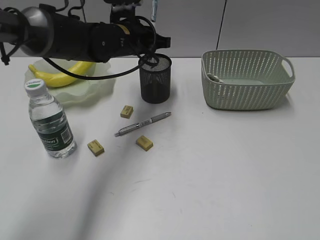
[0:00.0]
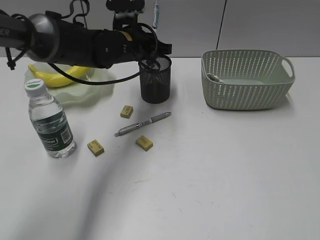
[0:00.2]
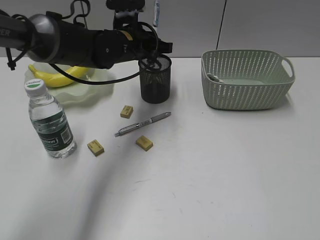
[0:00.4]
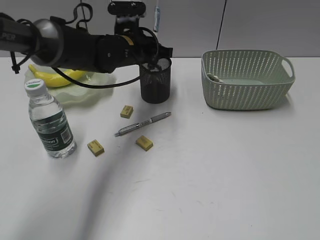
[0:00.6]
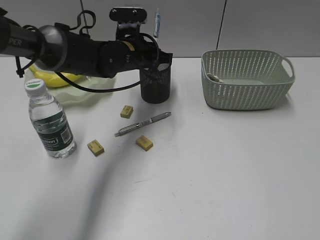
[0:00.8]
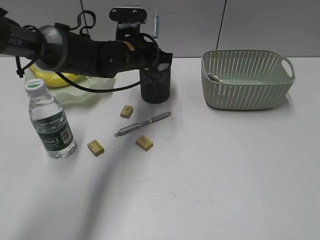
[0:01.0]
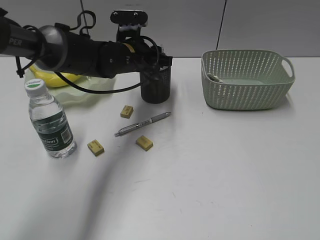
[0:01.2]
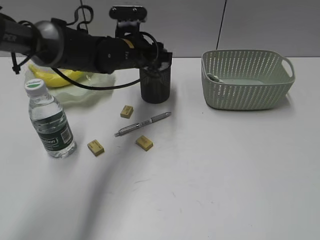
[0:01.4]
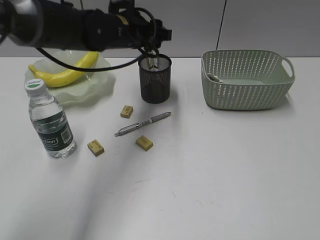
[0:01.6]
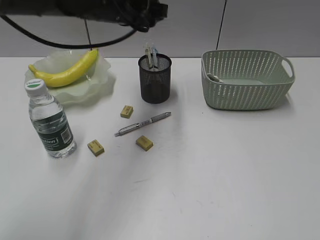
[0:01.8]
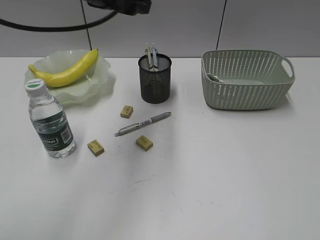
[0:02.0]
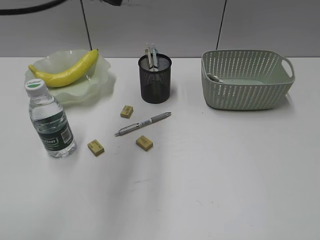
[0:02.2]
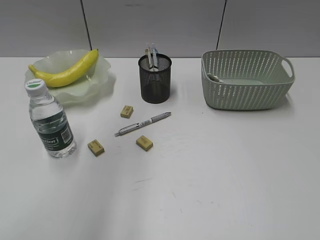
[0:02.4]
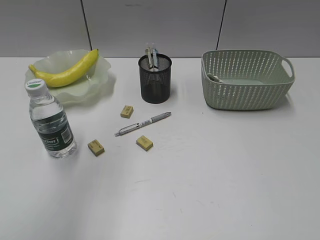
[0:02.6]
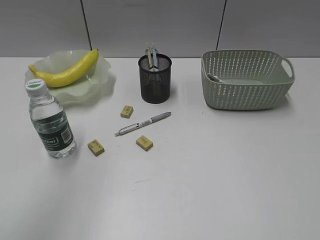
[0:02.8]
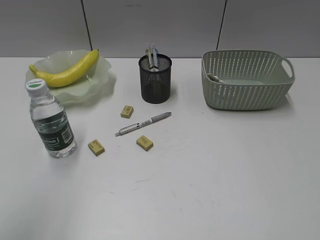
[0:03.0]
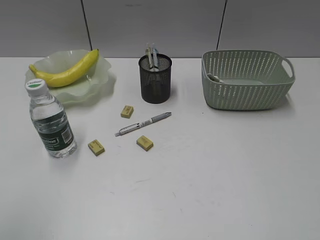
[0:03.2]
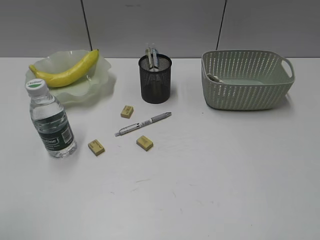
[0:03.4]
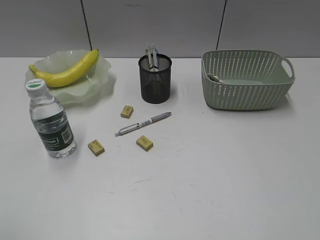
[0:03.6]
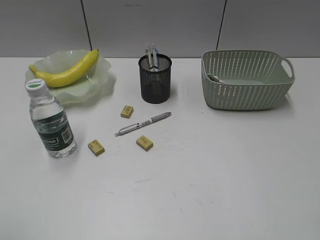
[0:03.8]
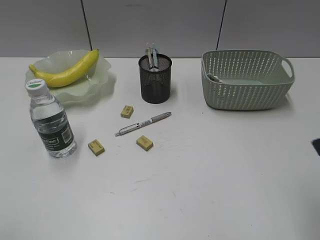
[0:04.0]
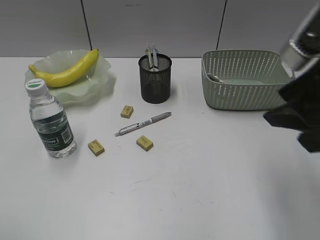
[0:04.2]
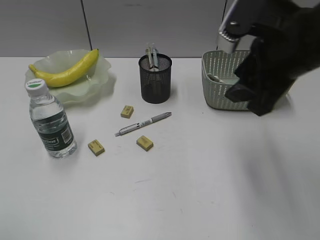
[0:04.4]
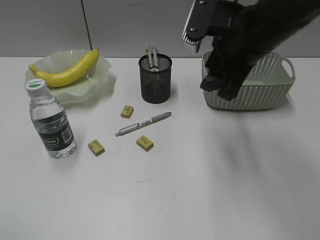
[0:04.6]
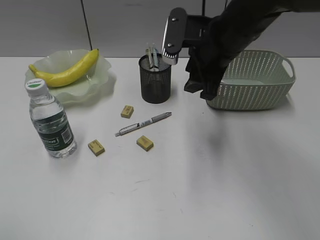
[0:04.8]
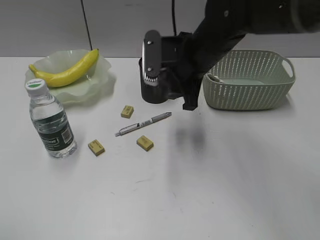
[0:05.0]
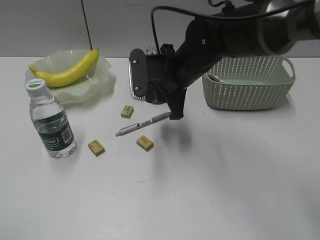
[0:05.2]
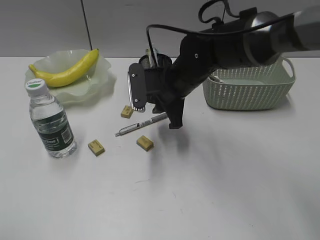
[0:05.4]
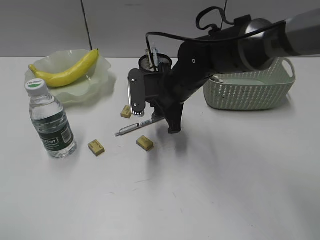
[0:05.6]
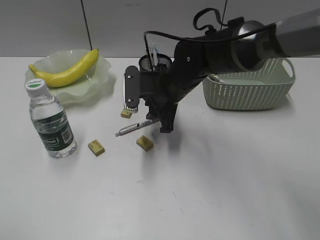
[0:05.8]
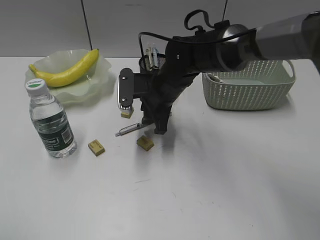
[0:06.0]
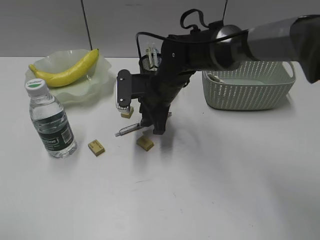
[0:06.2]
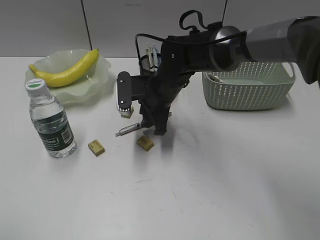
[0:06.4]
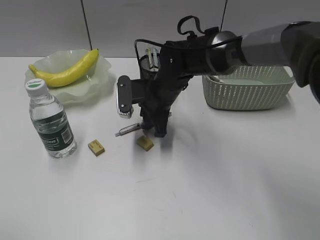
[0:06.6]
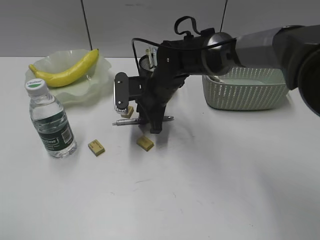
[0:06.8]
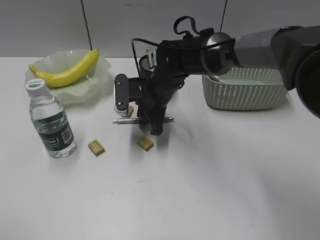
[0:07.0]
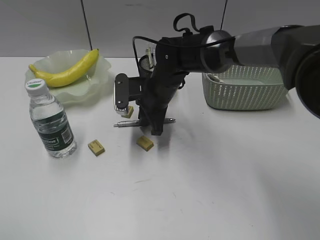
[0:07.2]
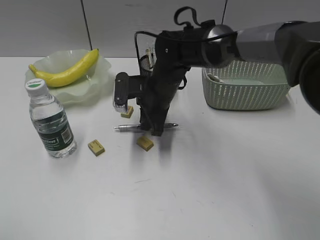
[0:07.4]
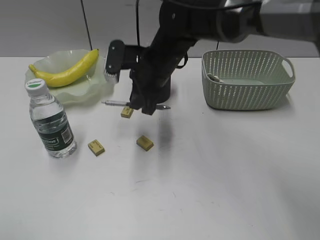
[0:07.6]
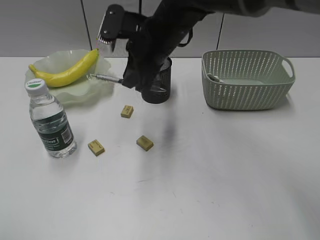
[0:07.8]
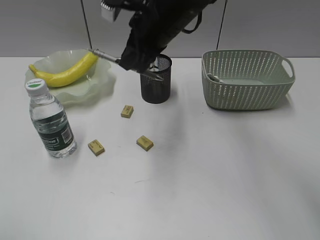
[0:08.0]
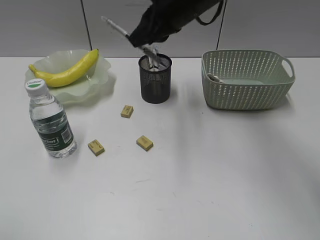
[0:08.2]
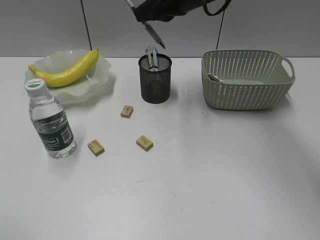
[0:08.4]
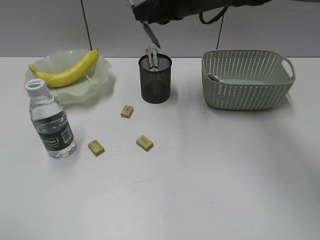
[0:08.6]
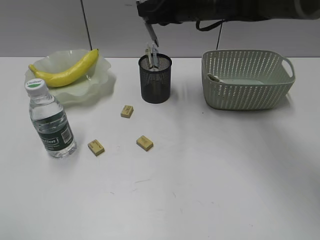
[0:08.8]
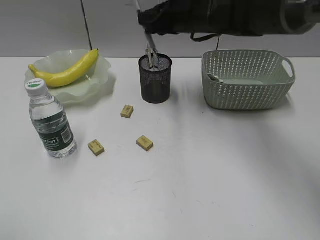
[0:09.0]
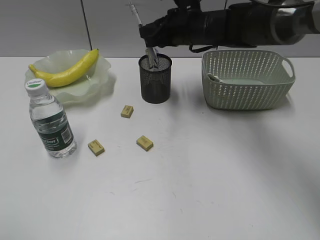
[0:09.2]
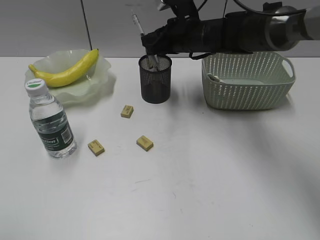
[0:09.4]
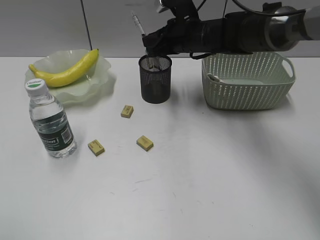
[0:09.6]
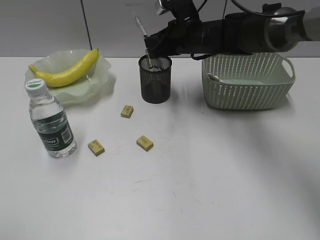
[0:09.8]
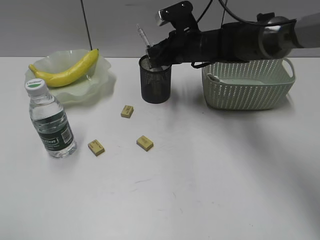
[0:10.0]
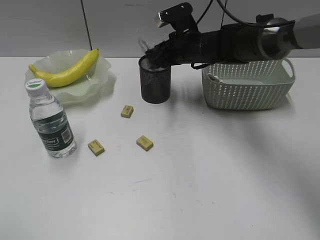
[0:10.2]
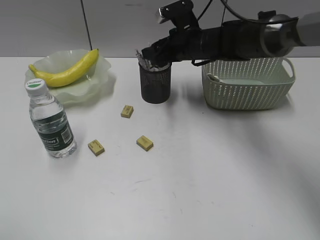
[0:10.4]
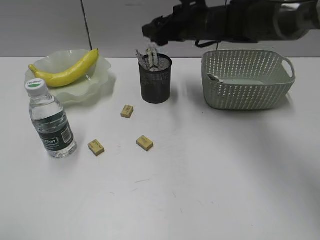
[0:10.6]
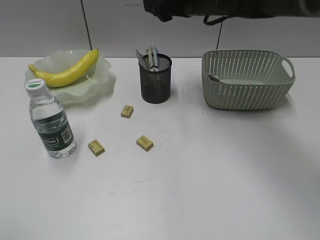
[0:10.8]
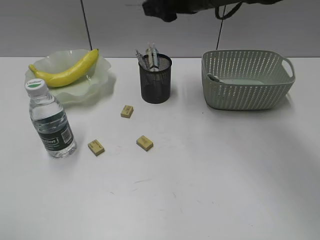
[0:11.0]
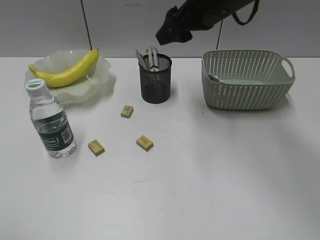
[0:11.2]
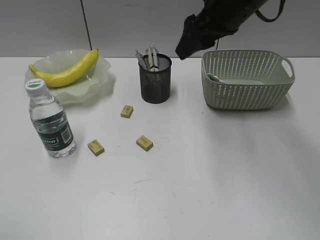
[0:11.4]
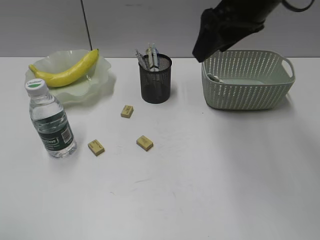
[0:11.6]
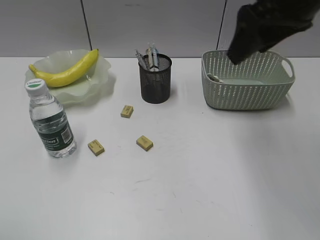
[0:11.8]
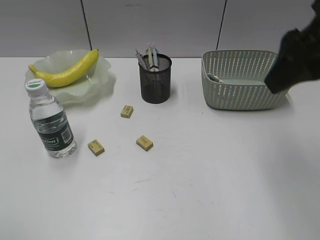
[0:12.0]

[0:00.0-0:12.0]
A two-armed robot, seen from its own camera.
Step, 0:01.6 to 0:07.2: Grasp the gray pen with right gripper.
Step, 0:07.4 to 0:10.2: Place the gray pen in pen holder with right gripper.
0:00.0 to 0:01.6: The left gripper opens.
0:01.6 to 0:03.0: The left gripper goes about 50 cm backward, upward and to the left.
0:03.0 to 0:04.4: The right gripper is displaced forward and to the left by about 30 cm.
0:04.4 to 0:06.0: The right gripper is displaced downward, to the left and forward by some 25 cm.
0:06.0 to 0:07.6: The right gripper closes.
0:07.6 to 0:09.0: The right gripper travels to the right, forward and upward by approximately 10 cm.
0:09.0 to 0:10.4: The right gripper travels downward by approximately 5 cm, and opens.
0:10.4 to 0:12.0: The right gripper heads backward, upward and to the right, covering some 30 cm.

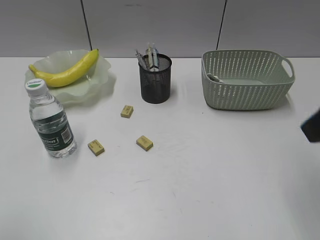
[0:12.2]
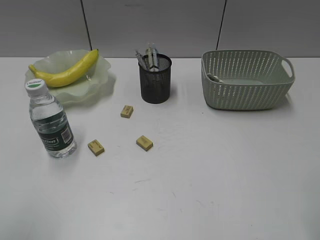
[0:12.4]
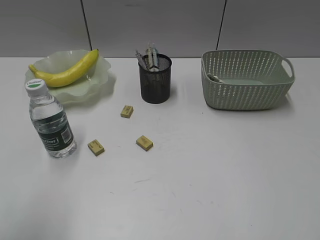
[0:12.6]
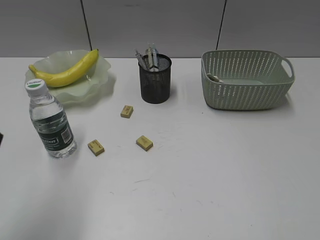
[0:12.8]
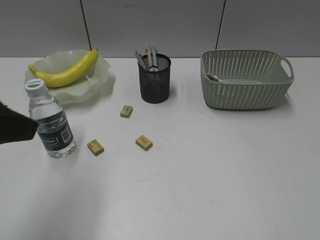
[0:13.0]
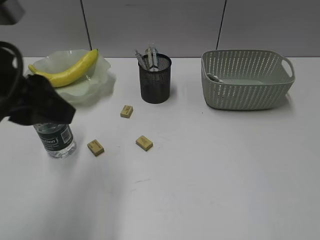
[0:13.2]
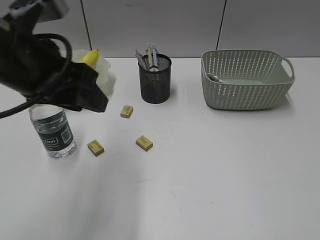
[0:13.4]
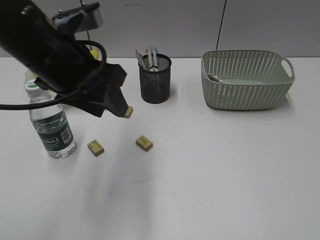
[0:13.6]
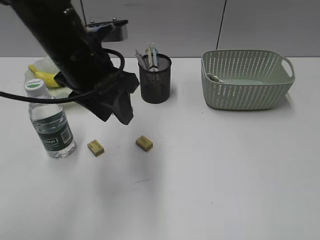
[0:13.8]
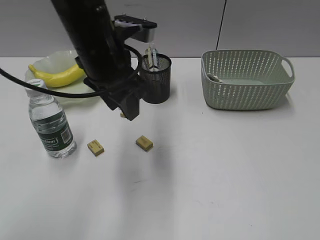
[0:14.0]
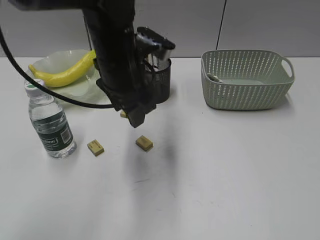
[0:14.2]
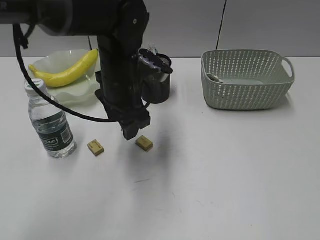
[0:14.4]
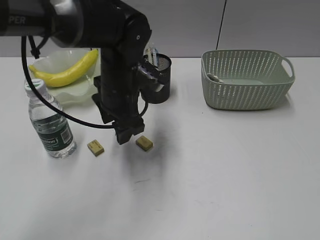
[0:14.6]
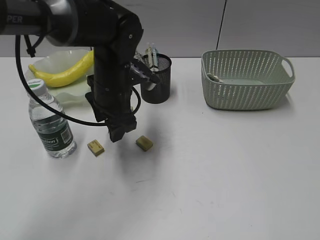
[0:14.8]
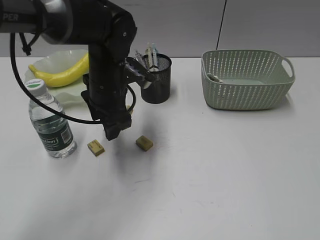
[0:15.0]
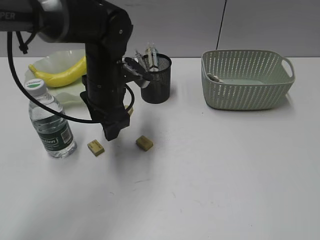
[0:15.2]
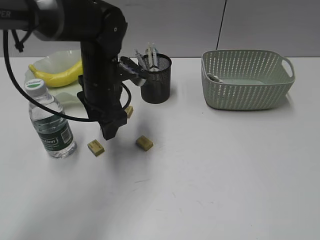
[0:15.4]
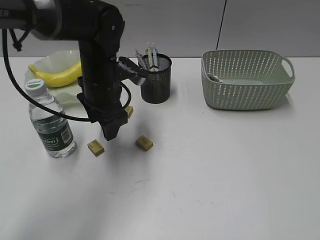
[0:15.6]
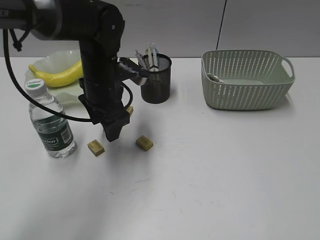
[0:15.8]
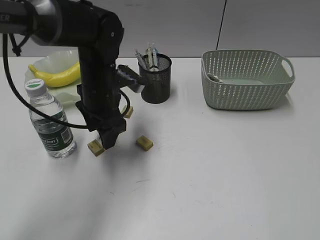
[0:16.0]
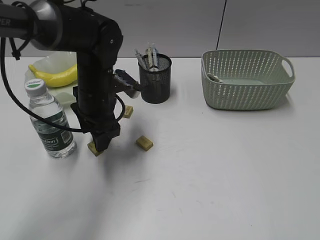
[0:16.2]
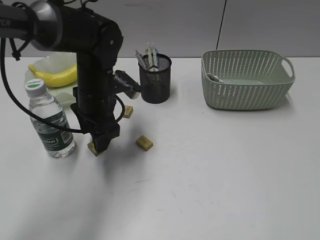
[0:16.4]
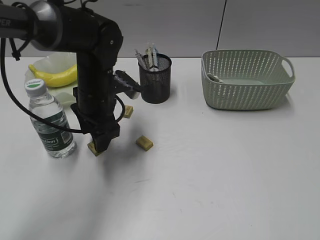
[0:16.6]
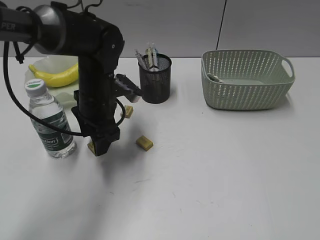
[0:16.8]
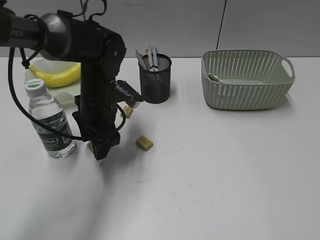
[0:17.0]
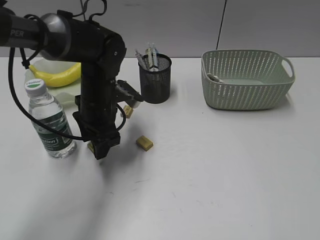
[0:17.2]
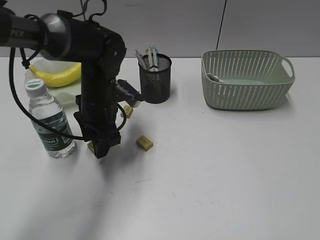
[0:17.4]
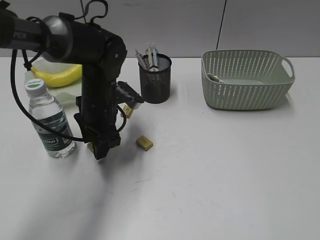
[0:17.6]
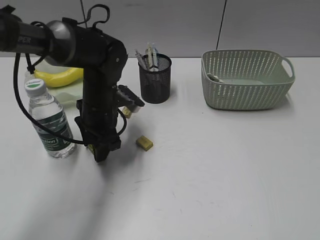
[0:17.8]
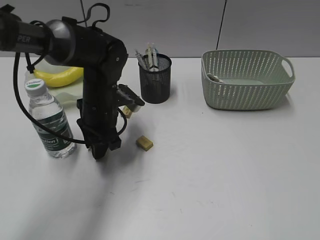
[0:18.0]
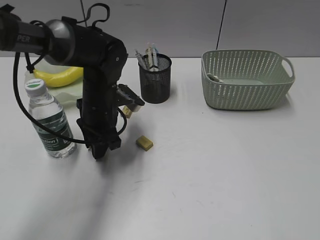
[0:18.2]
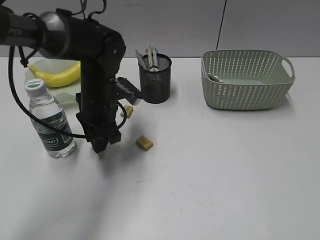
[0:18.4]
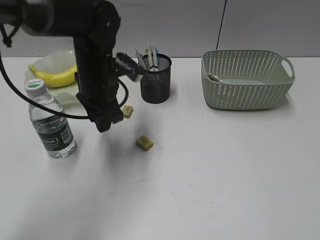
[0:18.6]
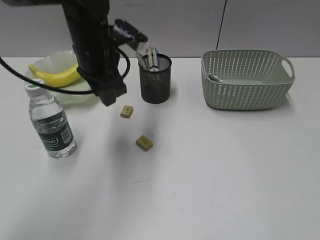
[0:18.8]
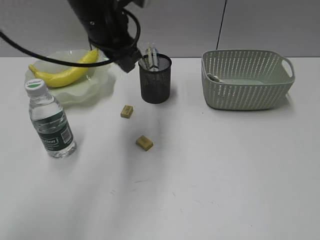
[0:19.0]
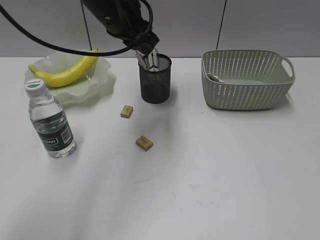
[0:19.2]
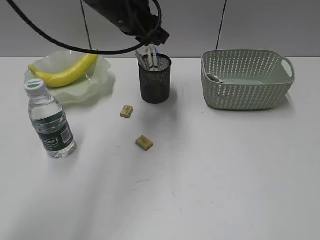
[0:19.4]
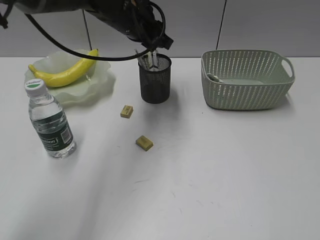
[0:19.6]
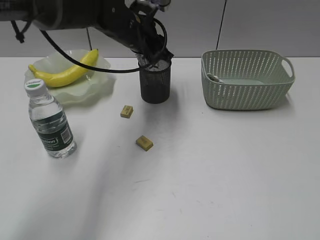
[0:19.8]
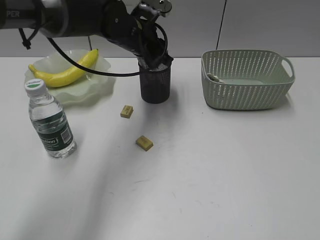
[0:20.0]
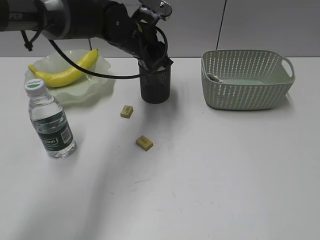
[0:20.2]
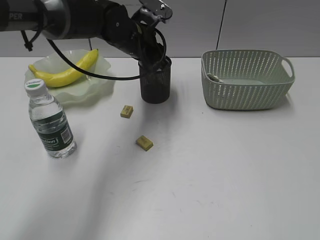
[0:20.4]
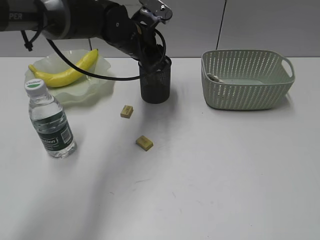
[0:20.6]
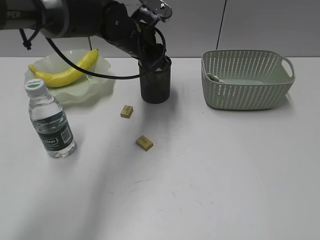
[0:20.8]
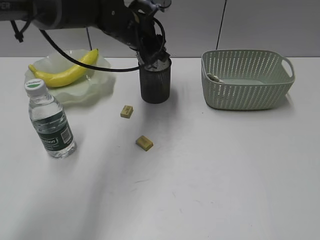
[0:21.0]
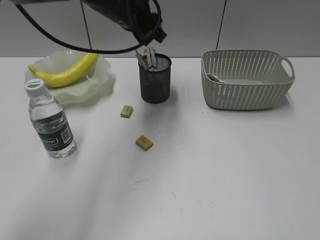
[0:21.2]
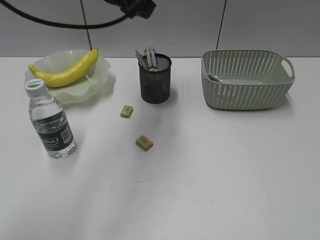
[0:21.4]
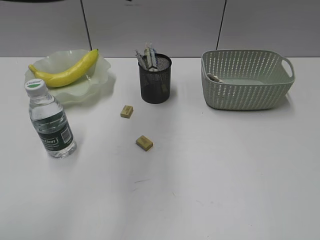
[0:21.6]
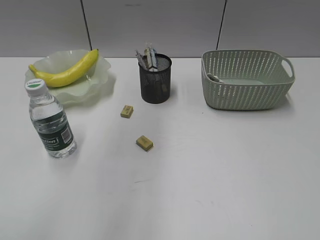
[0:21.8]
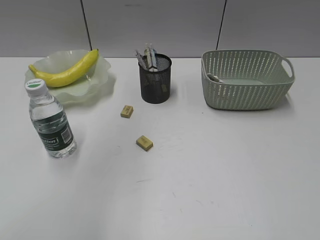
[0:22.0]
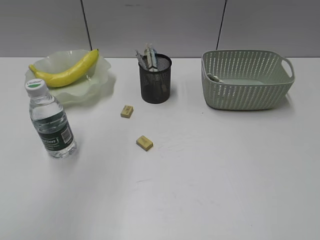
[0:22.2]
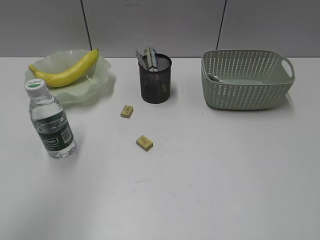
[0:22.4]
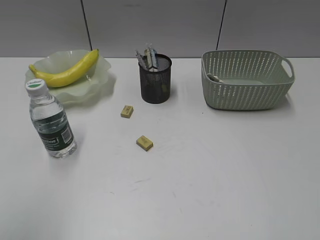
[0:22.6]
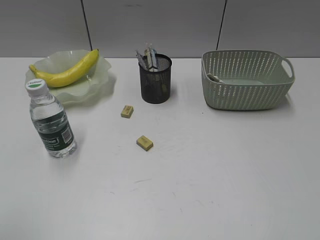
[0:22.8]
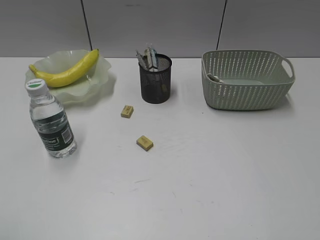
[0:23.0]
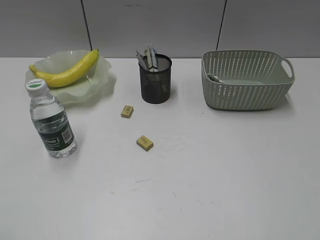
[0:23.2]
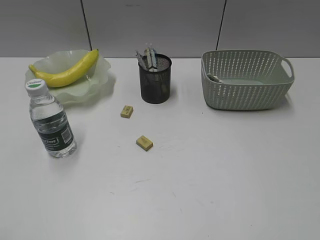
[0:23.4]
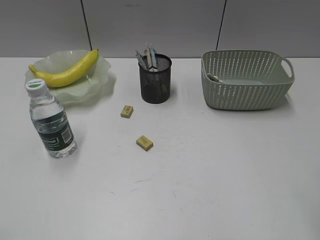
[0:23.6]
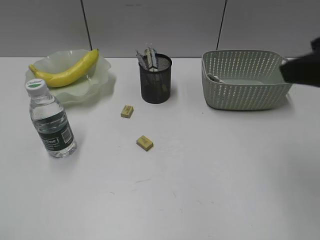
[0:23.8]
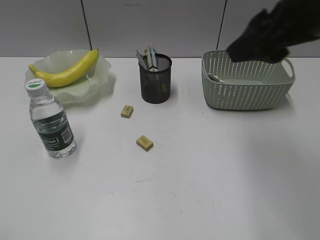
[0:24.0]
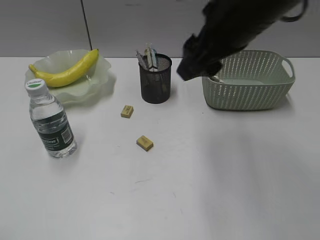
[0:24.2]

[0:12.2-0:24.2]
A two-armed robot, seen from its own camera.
Step, 0:12.2 to 0:18.0: Grasp the eraser with left gripper.
Step, 0:18.2 to 0:20.6: Place the eraser in pen holder with left gripper.
0:12.2 to 0:13.8: The left gripper travels forward and to the right by roughly 35 cm. The right gripper heads backward and to the right, covering about 20 cm.
0:13.8 to 0:15.2: The left gripper moves downward and forward, some 10 cm.
0:15.2 to 0:16.6: The grippers make only small movements.
0:16.6 to 0:18.2: The left gripper closes.
0:18.2 to 0:19.8: The left gripper goes roughly 15 cm upward, forward and to the right.
0:19.8 to 0:21.2: The left gripper travels upward by about 5 cm.
0:21.2 to 0:22.6: The left gripper goes approximately 40 cm backward, to the left and upward.
0:22.6 to 0:24.2: The left gripper is displaced downward and backward by about 15 cm. Meanwhile the right gripper moves forward and to the left, approximately 35 cm.
